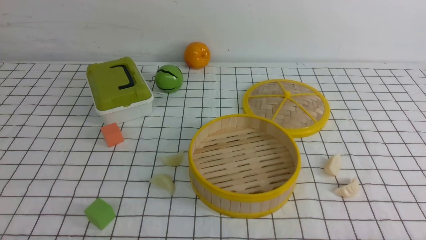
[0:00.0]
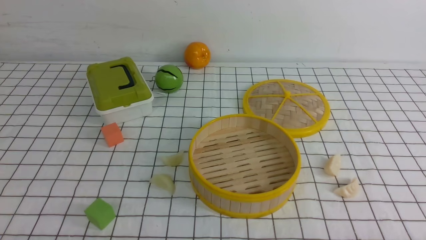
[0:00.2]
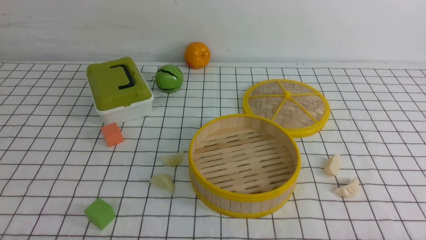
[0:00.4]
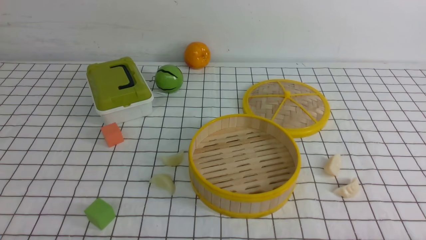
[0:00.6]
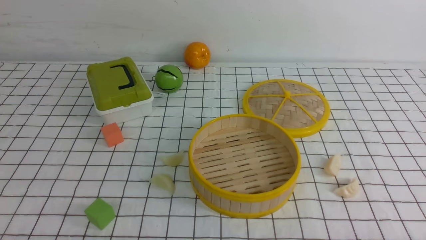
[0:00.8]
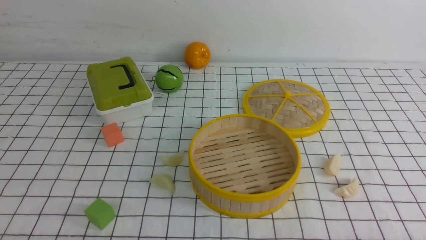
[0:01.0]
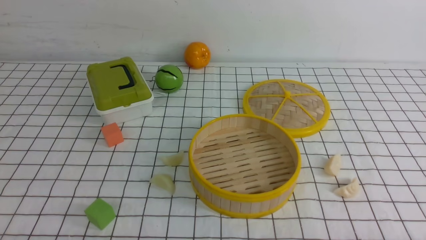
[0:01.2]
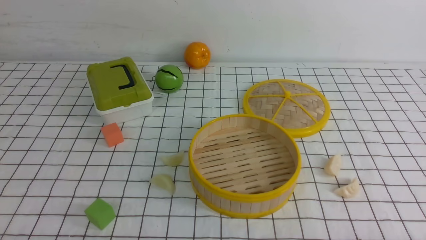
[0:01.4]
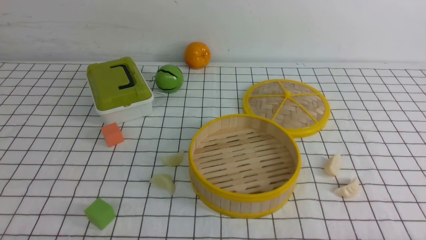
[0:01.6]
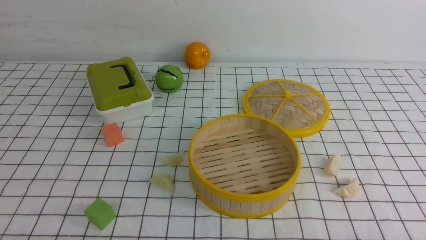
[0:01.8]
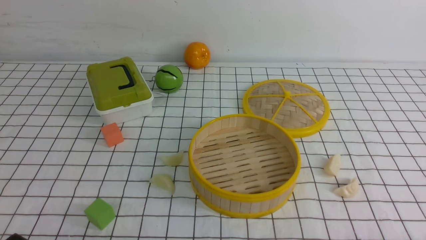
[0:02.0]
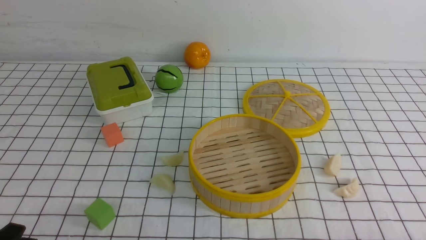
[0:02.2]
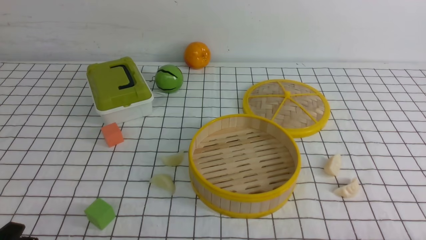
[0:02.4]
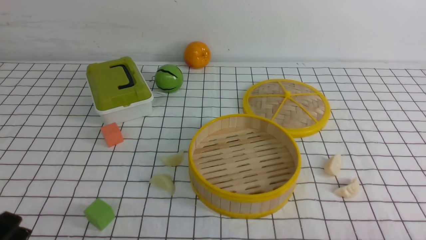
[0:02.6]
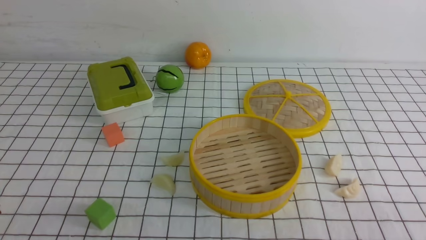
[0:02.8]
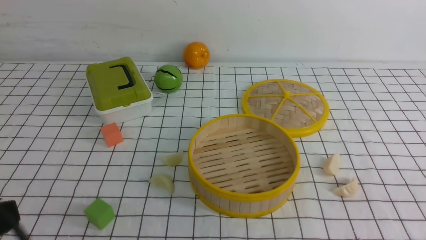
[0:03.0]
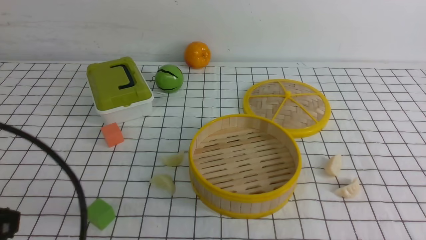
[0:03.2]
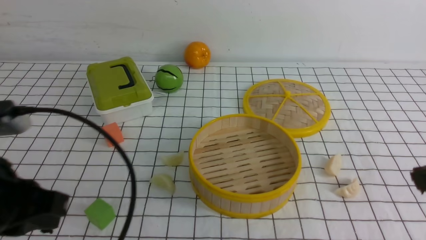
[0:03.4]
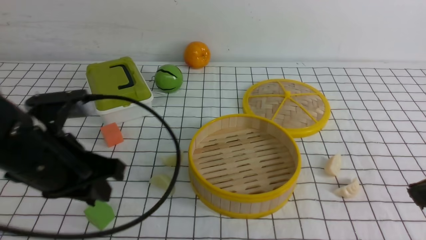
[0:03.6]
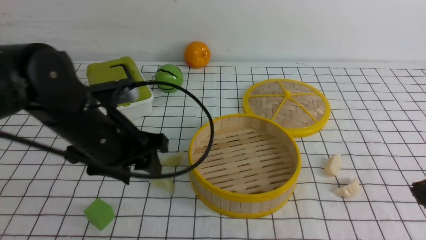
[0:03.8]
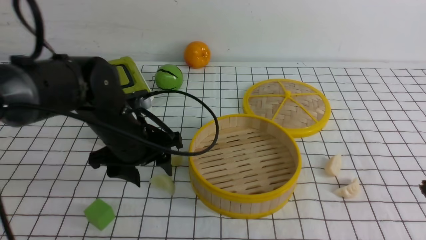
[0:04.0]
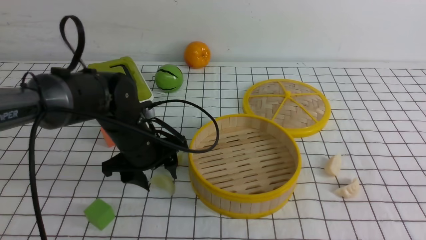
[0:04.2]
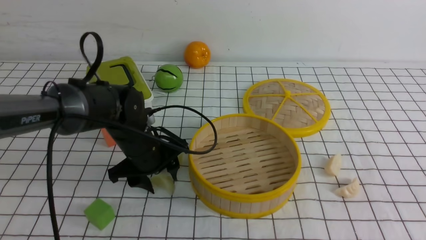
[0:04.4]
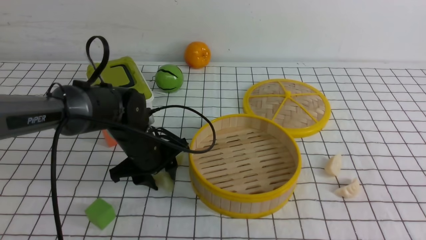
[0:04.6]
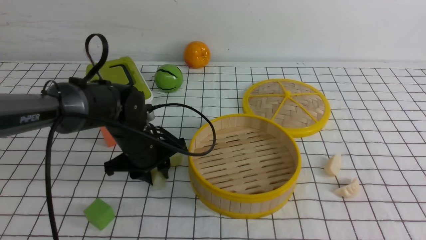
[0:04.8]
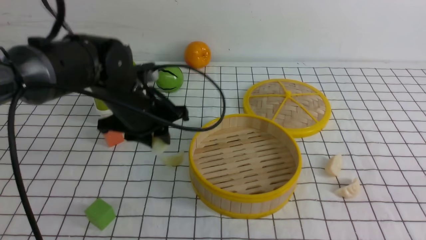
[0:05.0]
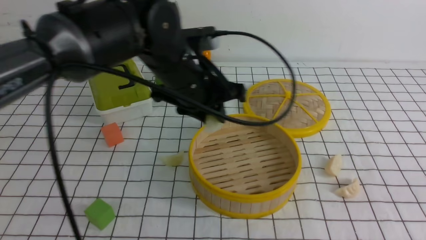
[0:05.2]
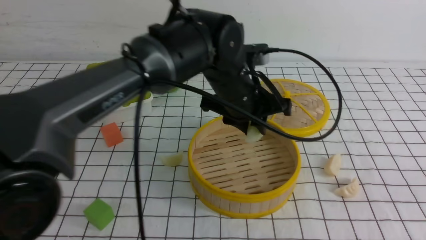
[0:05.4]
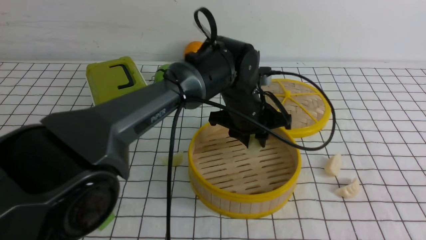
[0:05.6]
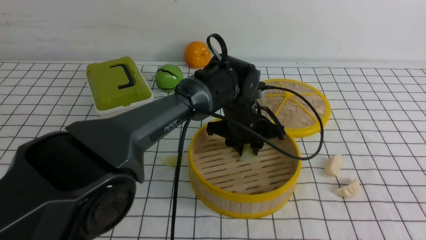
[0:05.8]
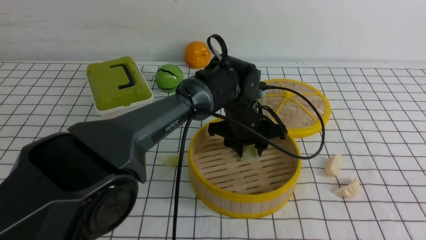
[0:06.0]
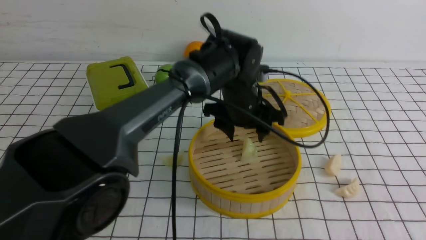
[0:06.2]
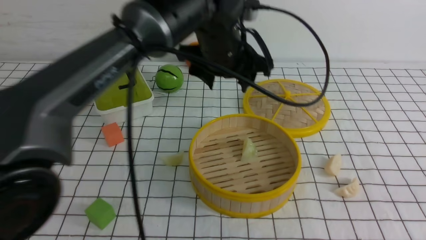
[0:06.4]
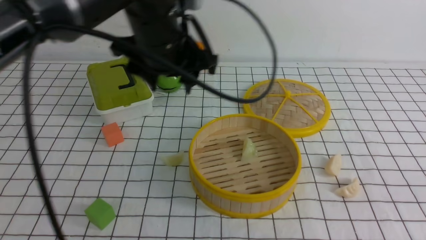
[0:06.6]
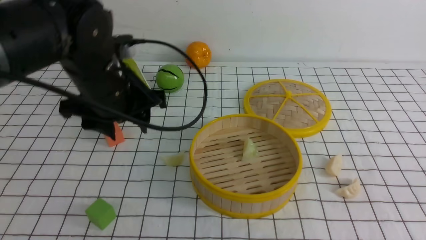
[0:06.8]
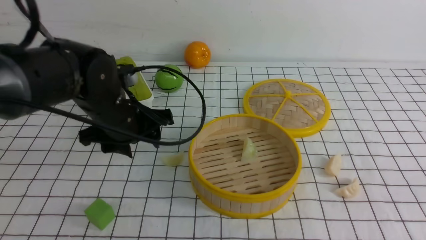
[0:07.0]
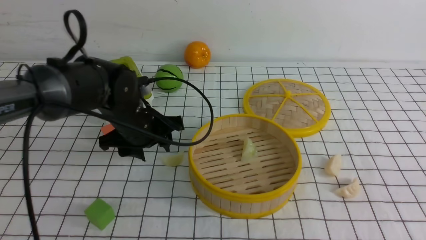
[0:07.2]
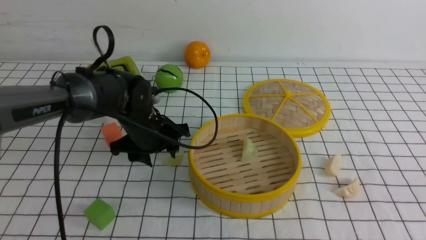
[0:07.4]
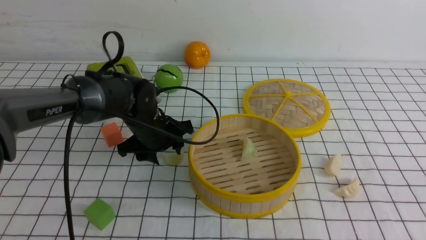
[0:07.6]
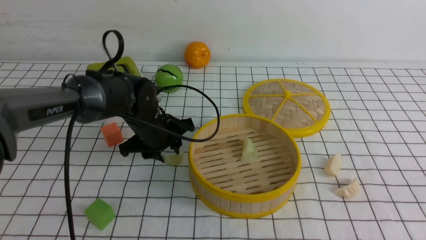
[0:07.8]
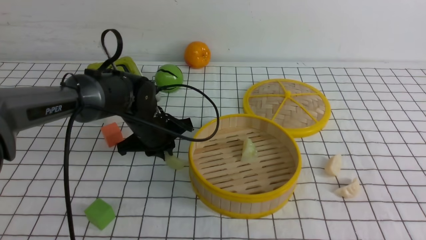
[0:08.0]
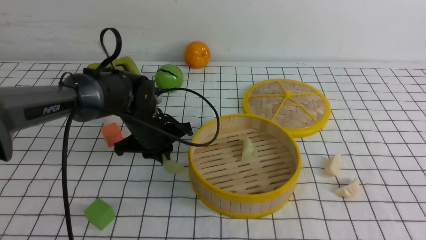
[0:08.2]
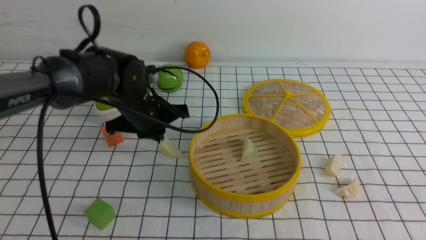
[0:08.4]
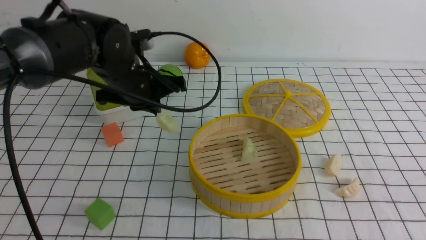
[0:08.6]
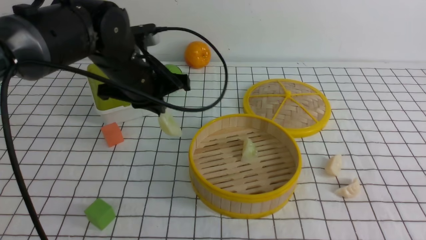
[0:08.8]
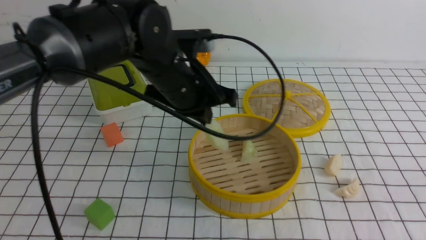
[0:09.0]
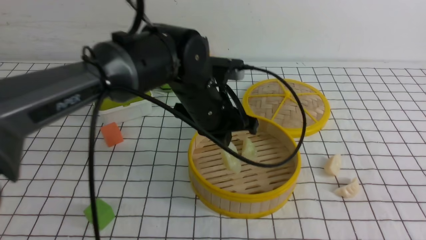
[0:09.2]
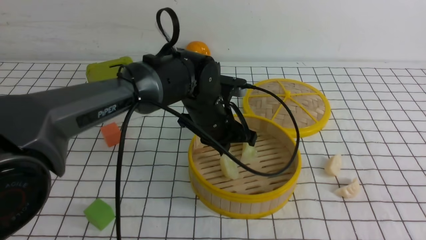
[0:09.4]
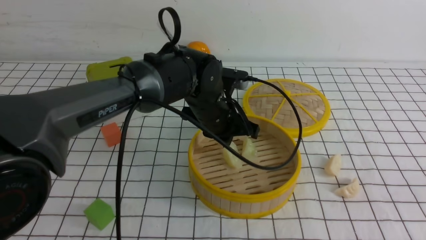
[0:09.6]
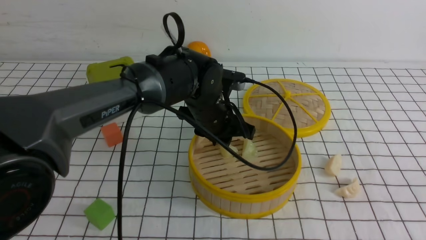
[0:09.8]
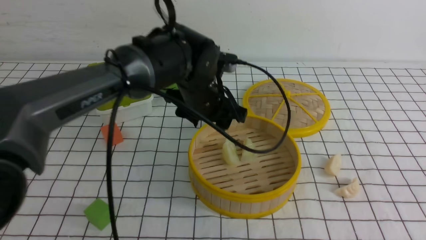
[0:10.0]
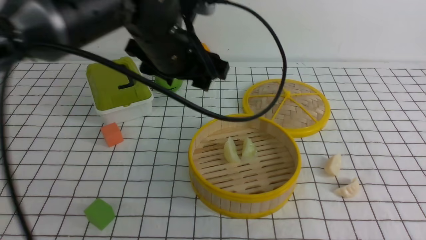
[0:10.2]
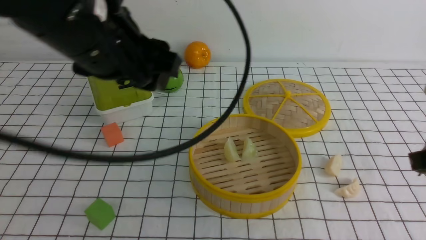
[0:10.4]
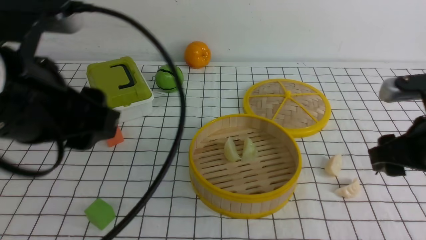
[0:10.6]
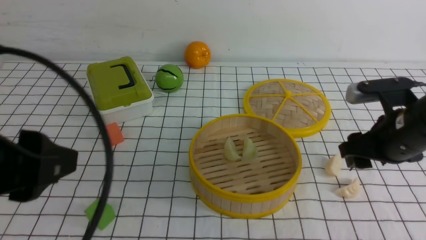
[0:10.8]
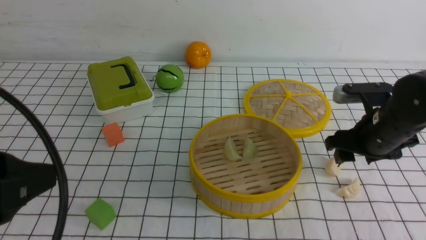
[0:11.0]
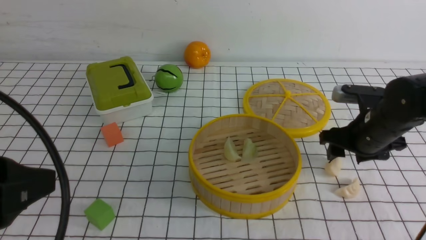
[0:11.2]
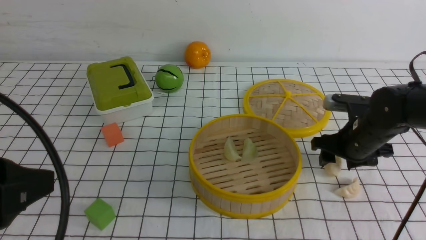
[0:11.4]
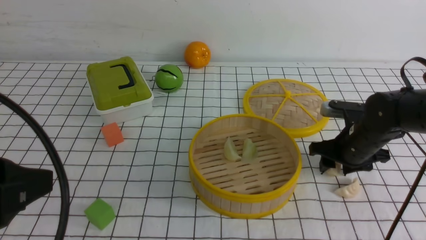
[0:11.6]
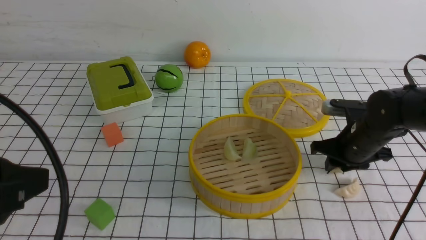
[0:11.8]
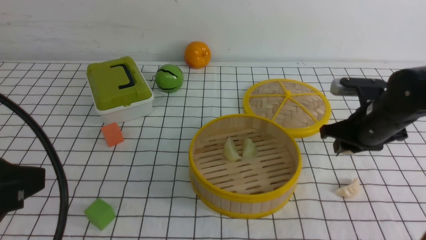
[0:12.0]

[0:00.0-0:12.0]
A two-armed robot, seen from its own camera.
Task of the whole recording: put the dumplings into the steamer on the table with the white tablecloth.
Step, 0:00.0 to 0:04.6: use the left arm to grab a dumpling.
Step, 0:04.8 to 0:06.2: use the left arm to put the dumpling into the steamer.
Step, 0:06.4 to 0:08.2: use the left arm to grab a dumpling.
Step, 0:08.4 to 0:10.0: use the left arm to put the dumpling into the steamer.
Step, 0:10.2 to 0:11.6: use the right arm to grab a dumpling.
0:00.0 to 0:01.6: Both grippers stay put.
0:01.6 to 0:03.0: The left gripper shifts some 15 cm upward, and closes.
0:03.0 to 0:04.4: The left gripper heads forward and downward, covering roughly 35 cm, and opens up.
0:04.4 to 0:06.0: The left gripper goes roughly 15 cm to the right.
0:06.0 to 0:07.6: The left gripper moves to the left, about 15 cm.
0:07.6 to 0:09.0: The left gripper moves upward and to the right, some 15 cm, and closes its fingers.
0:09.0 to 0:10.4: The left gripper heads backward, upward and to the left, covering roughly 20 cm, and opens its fingers; the right gripper shifts approximately 10 cm forward, and opens.
0:10.4 to 0:12.0: The right gripper is displaced forward and downward by approximately 15 cm. The left gripper goes some 15 cm backward and to the left.

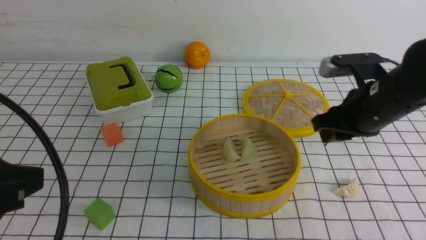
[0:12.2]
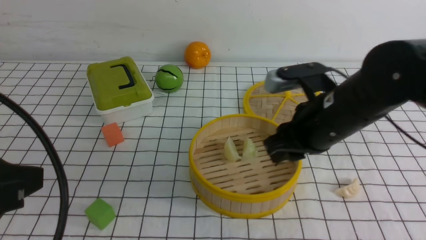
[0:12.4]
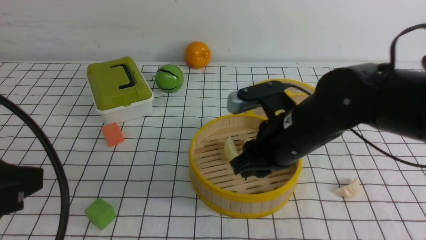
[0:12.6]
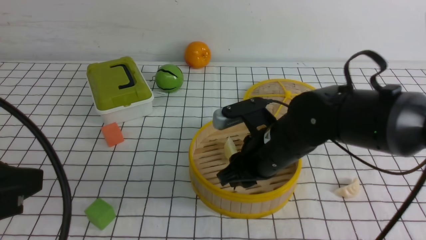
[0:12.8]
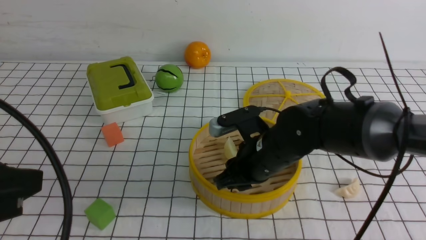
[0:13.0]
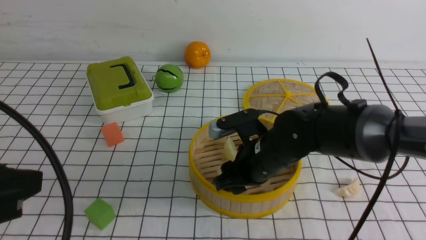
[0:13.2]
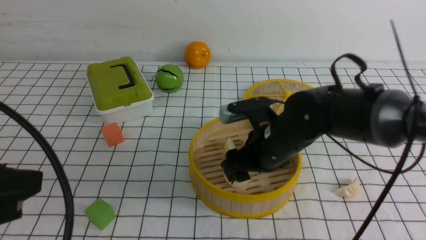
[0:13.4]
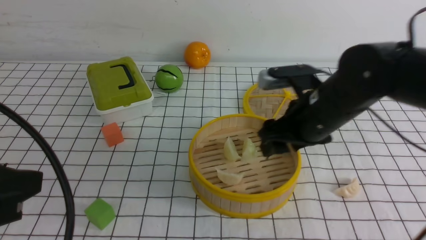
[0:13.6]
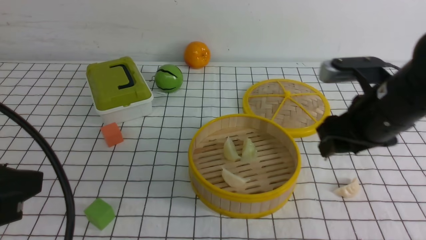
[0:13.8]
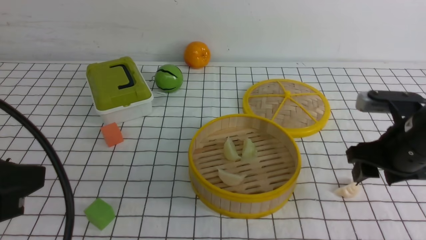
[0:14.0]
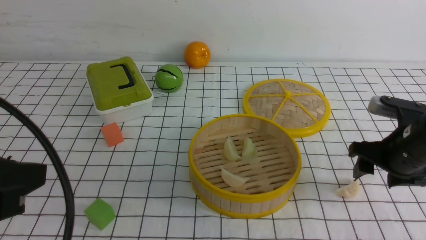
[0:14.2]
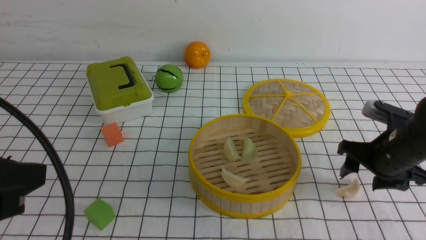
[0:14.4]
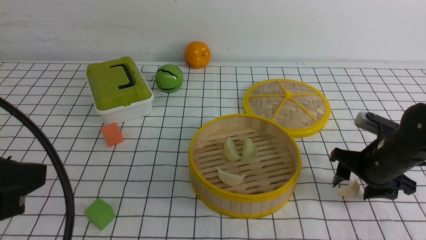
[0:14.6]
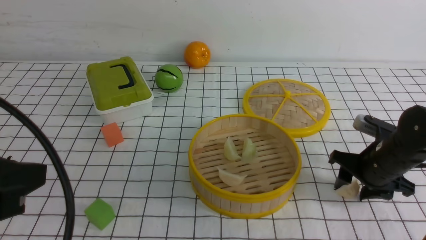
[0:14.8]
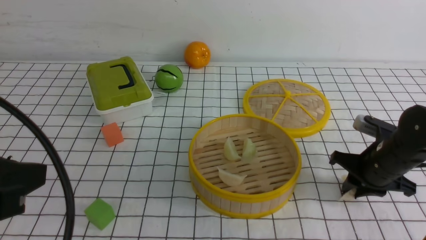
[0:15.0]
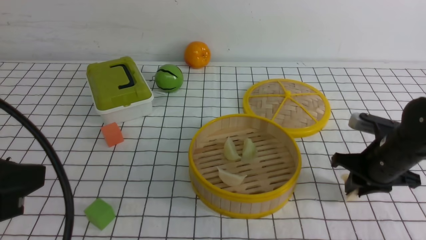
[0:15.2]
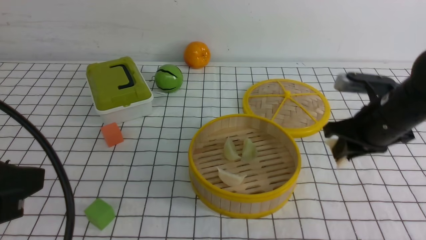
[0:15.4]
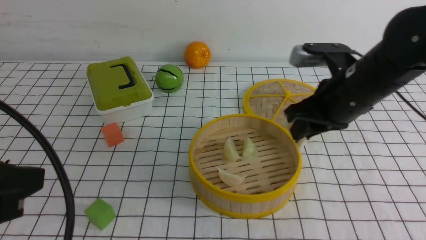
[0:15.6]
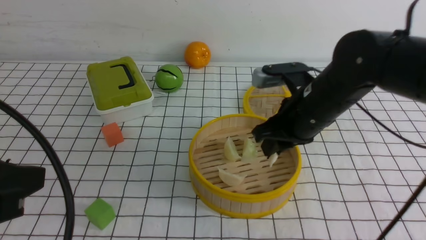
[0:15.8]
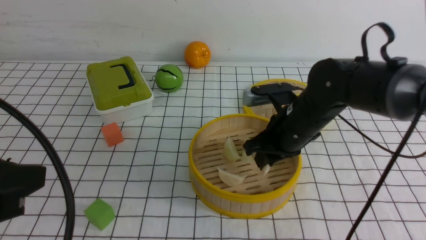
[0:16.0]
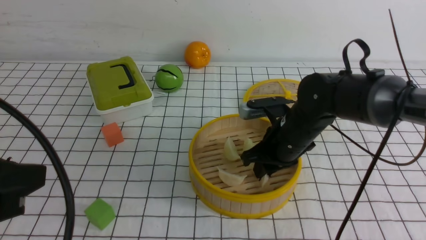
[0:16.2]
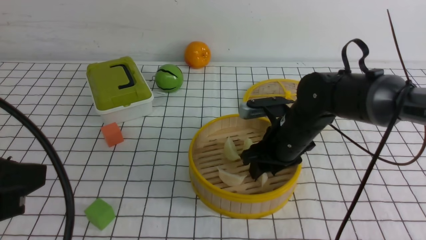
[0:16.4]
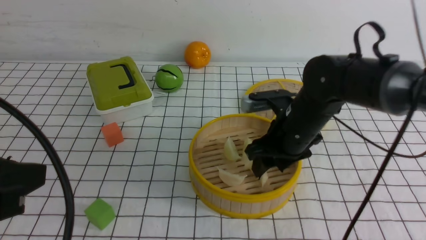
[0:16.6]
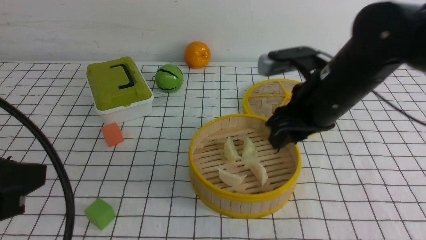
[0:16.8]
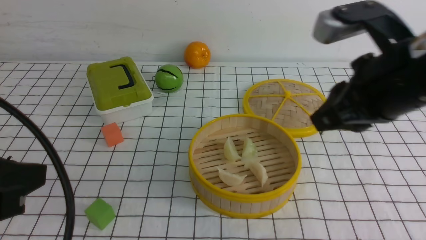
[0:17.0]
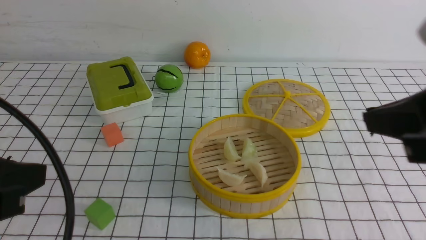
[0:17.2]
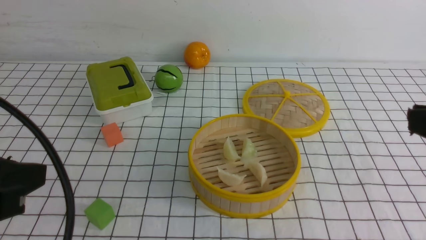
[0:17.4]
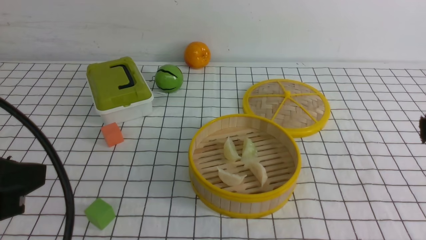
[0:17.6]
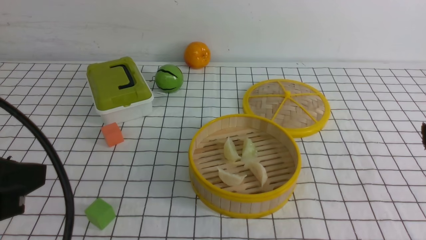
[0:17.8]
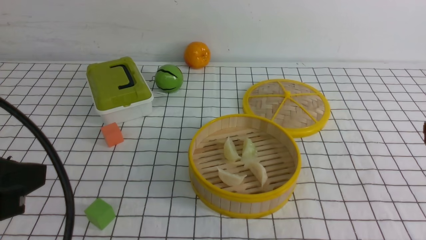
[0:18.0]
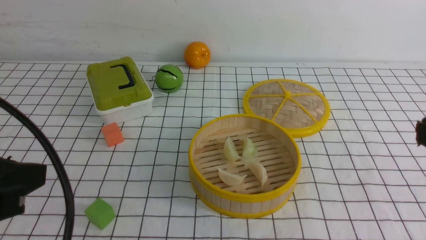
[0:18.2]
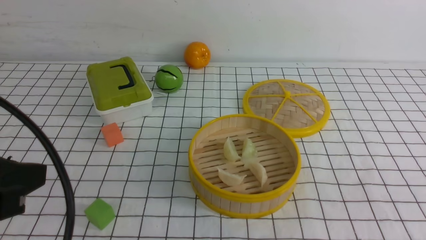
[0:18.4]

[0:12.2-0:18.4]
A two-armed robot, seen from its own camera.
Task of the whole recording: put the dumplings into the steamer on the table with the white tablecloth.
Step, 0:12.2 to 0:13.4: use the right arm to put the dumpling into the steamer.
Step, 0:13.6 to 0:14.8: use the right arm to grab a dumpling.
Step, 0:15.2 to 0:16.6: use the right arm to put the dumpling into the steamer.
0:12.2 to 0:13.8: The right gripper travels to the left and back again, about 10 cm each way, and opens its fingers.
0:13.8 to 0:15.4: The right gripper reaches about 10 cm downward, then returns, and closes its fingers.
0:15.4 to 0:16.8: The right gripper goes about 10 cm upward and to the left.
0:16.8 to 0:18.4: The right gripper shifts about 25 cm backward and to the right, and closes its fingers.
